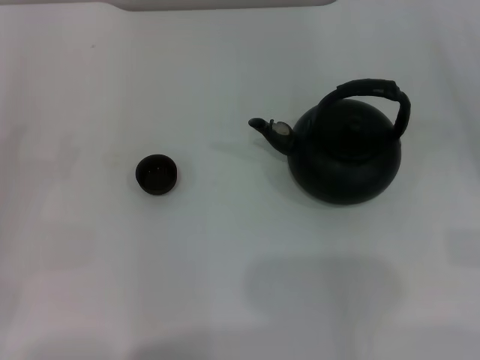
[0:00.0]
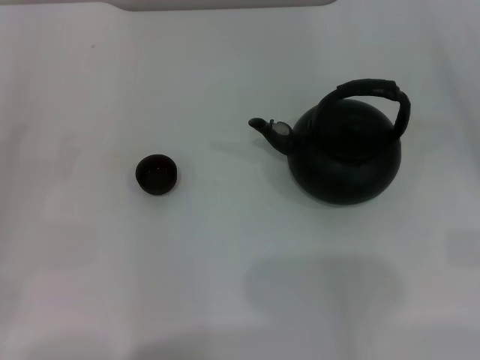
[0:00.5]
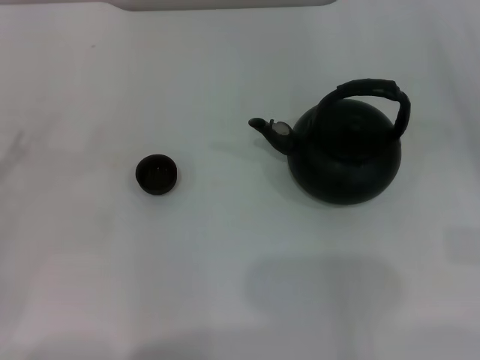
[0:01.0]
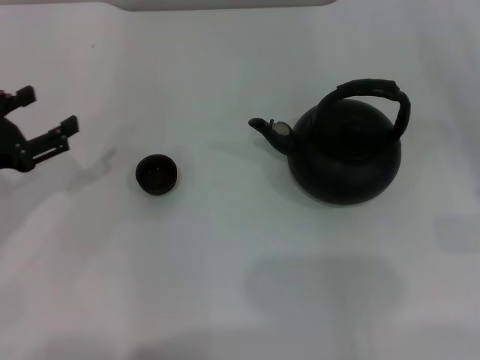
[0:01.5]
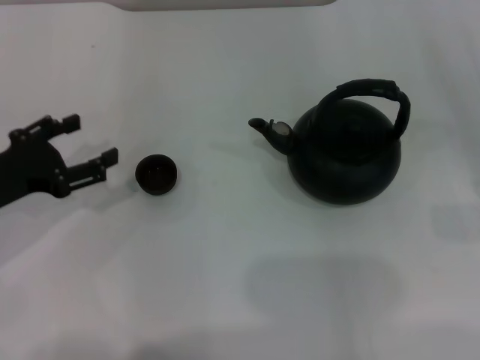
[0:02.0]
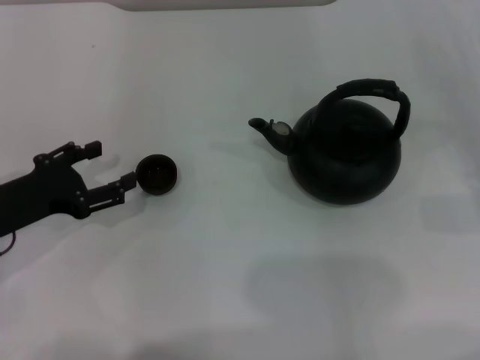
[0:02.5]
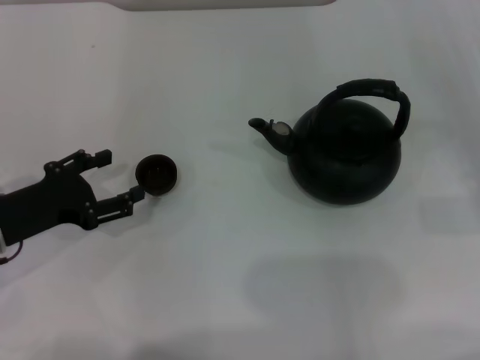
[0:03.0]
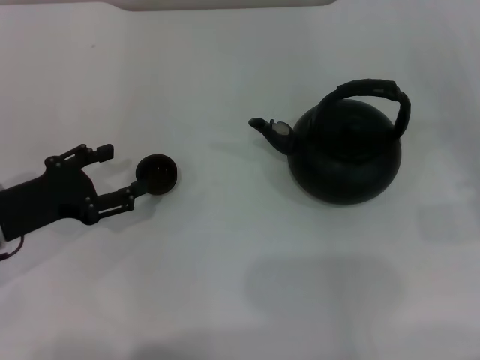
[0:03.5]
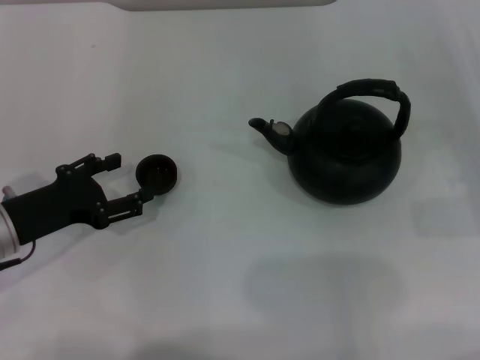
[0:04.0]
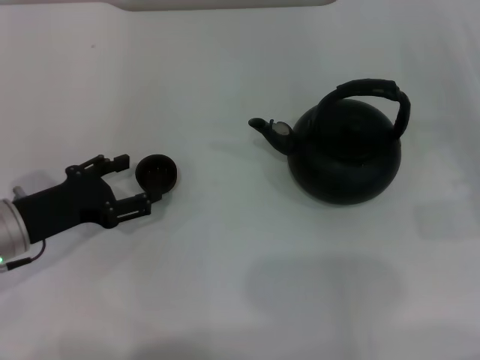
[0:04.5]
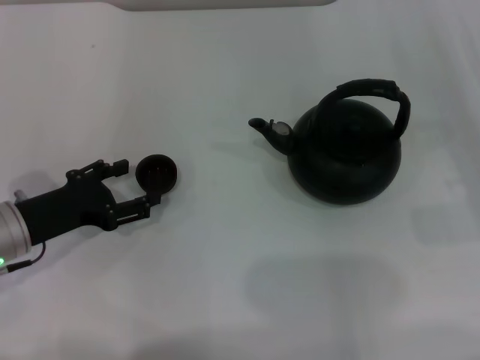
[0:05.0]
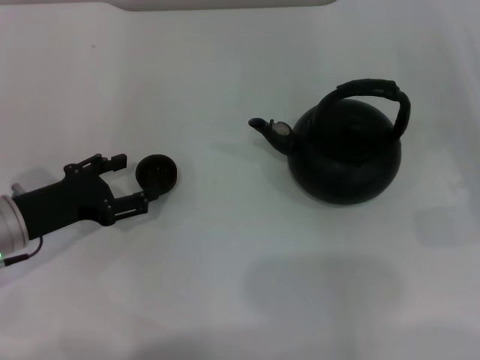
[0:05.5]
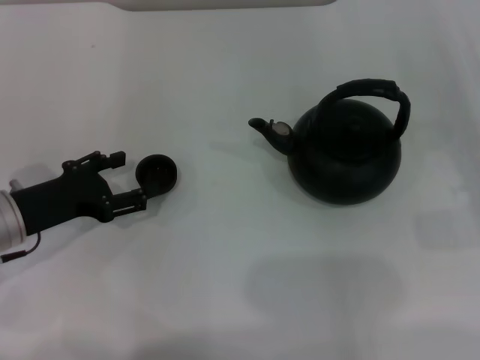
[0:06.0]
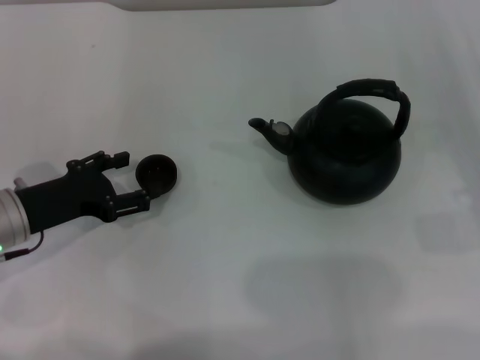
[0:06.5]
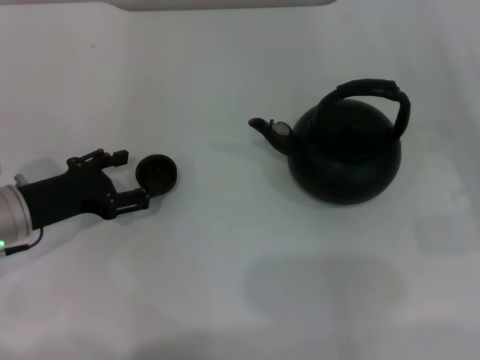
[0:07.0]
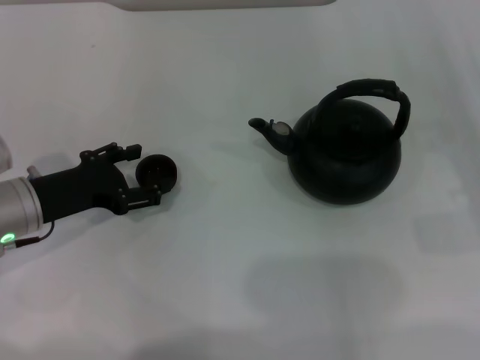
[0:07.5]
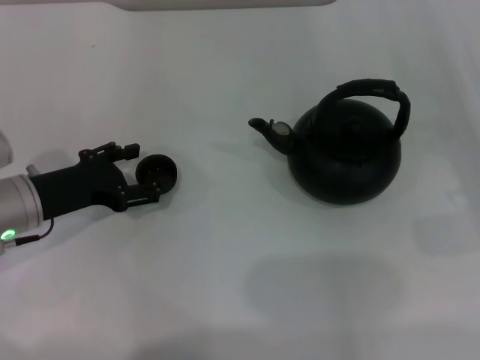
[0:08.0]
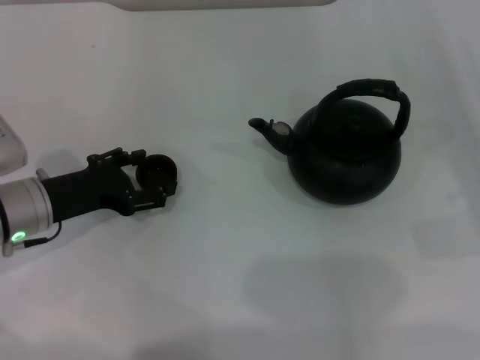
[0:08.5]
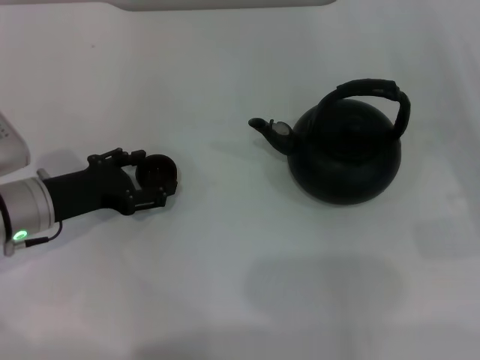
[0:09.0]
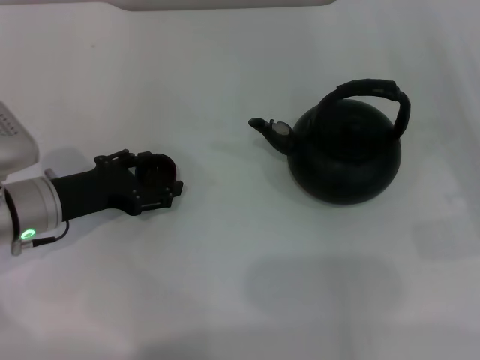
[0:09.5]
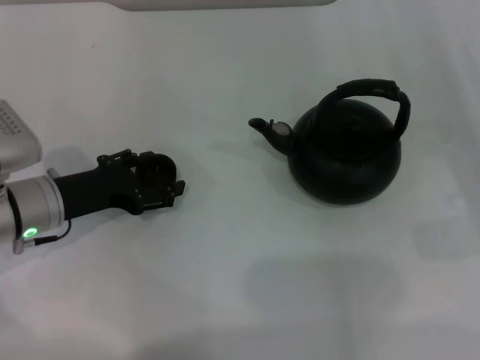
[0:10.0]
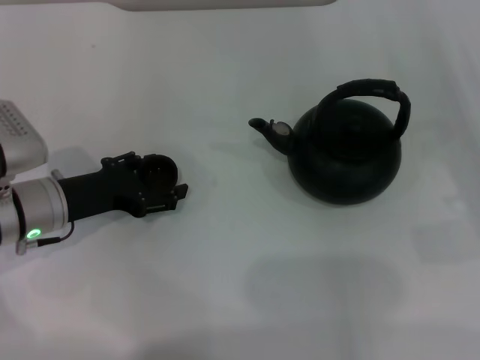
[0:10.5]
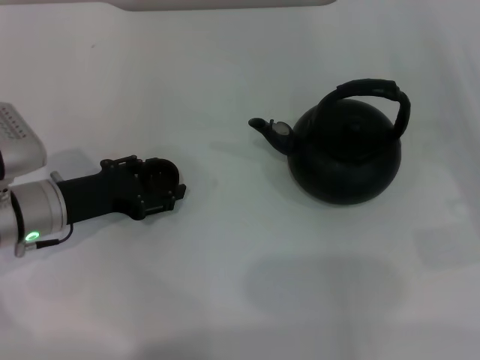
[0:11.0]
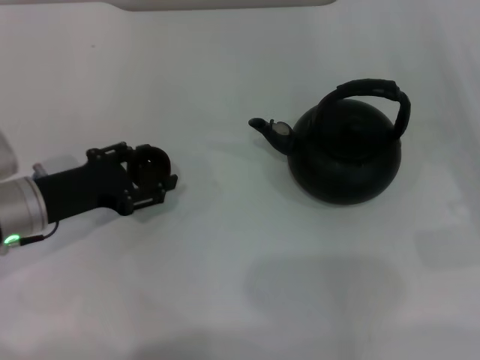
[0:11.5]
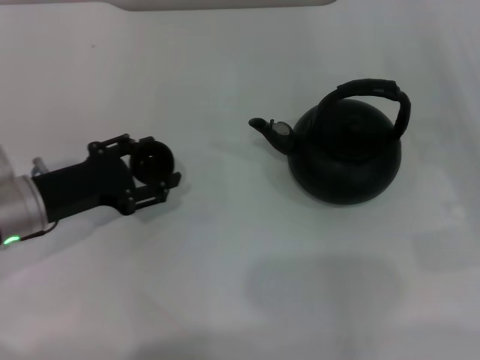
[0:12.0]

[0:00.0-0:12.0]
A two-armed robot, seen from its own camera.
Task of the whole recording: Grasp the handle of the teapot with one hand and pour tea into the teacup.
Step, 0:00.0 to 0:11.5: Pick up the teacup with the left gripper.
0:00.0 to 0:02.0: The left gripper moves to the right and forward, some 10 cm.
0:02.0 to 0:04.0: The grippers move only a little.
0:04.0 to 0:06.0: Neither gripper changes place.
0:06.0 to 0:10.0: There are only small adjustments of the grippers.
0:10.0 to 0:12.0: The left gripper closes.

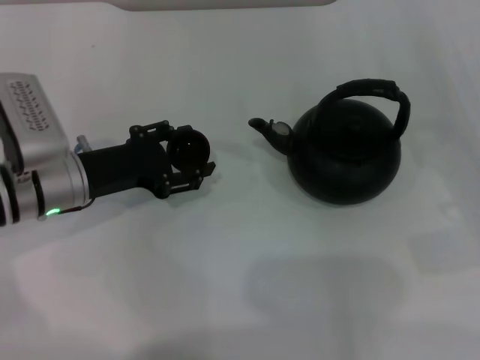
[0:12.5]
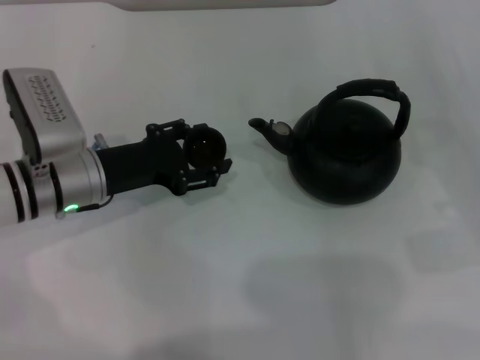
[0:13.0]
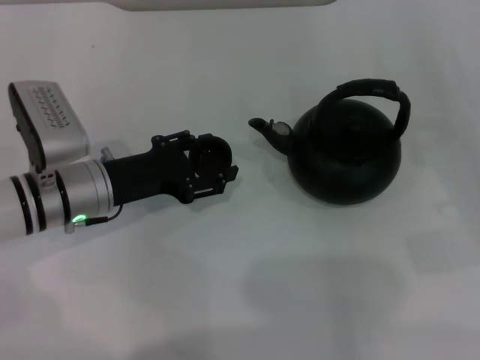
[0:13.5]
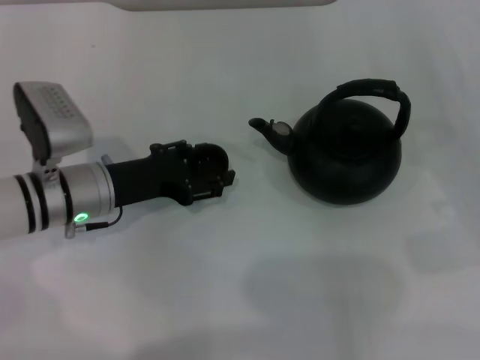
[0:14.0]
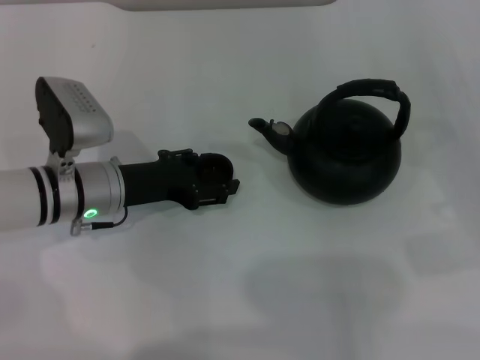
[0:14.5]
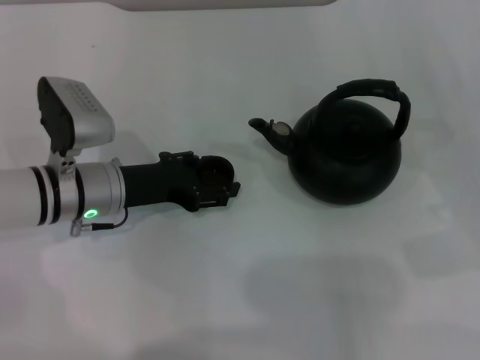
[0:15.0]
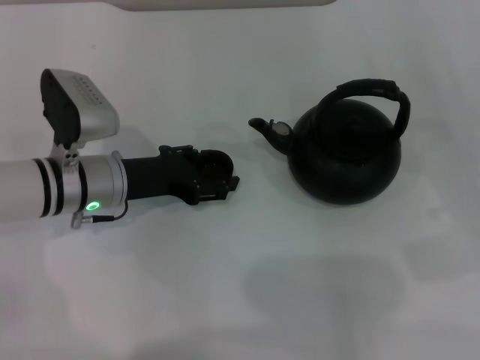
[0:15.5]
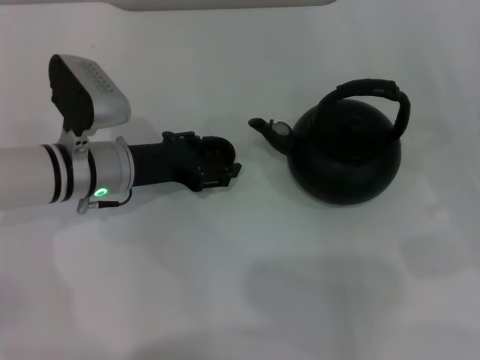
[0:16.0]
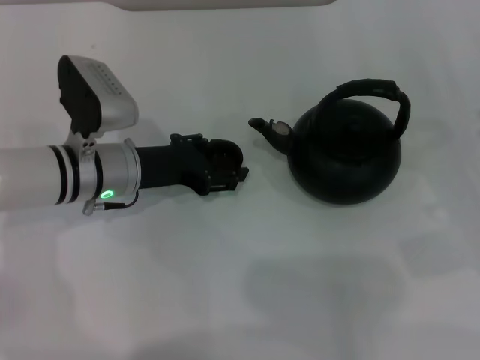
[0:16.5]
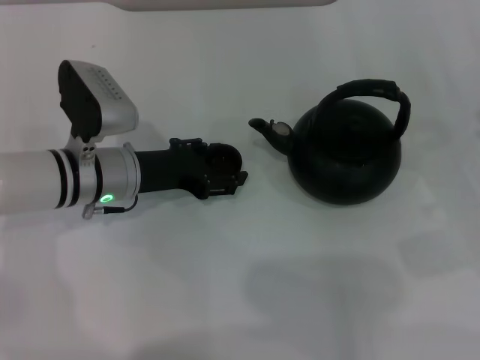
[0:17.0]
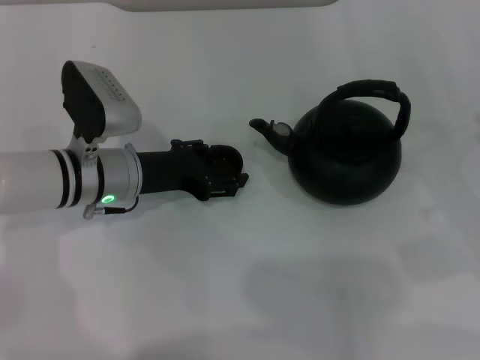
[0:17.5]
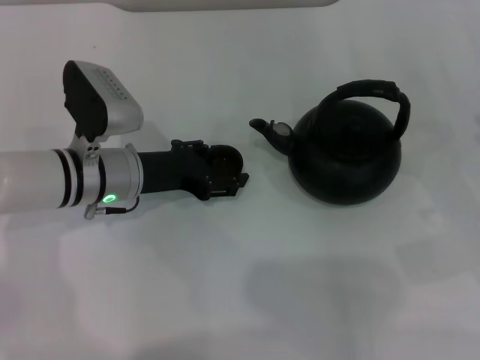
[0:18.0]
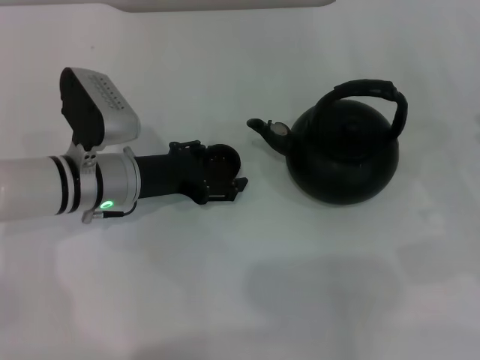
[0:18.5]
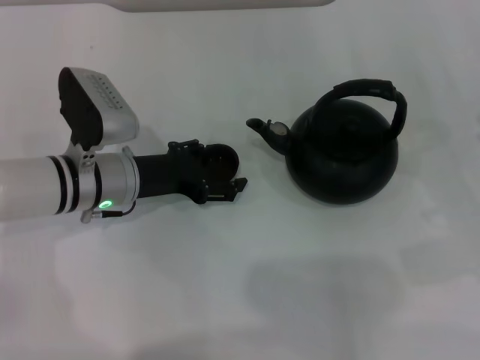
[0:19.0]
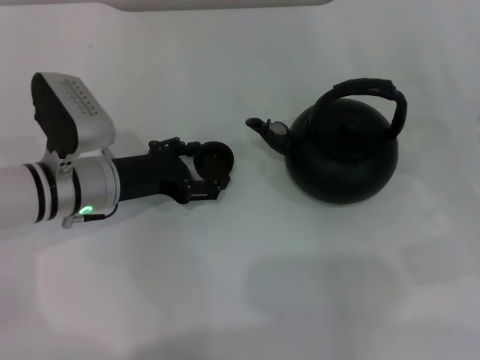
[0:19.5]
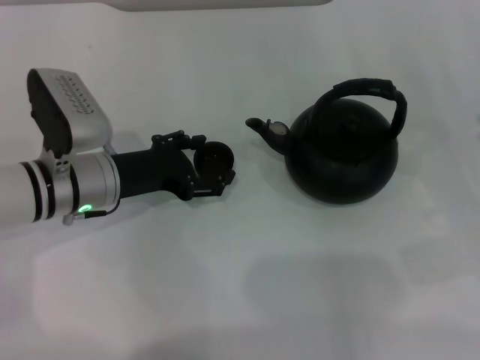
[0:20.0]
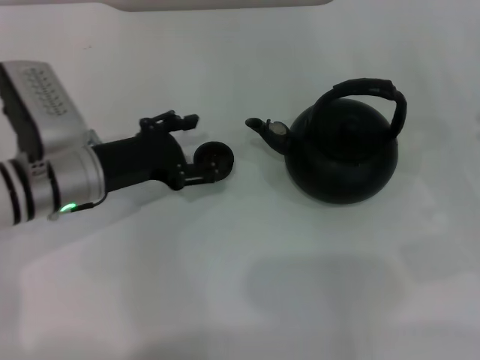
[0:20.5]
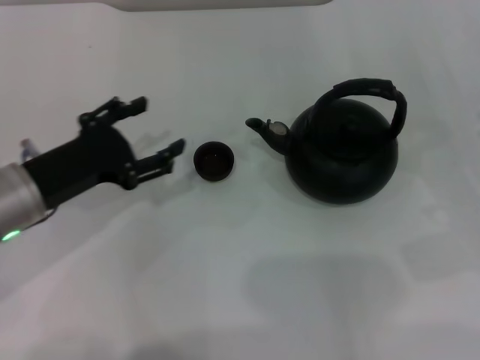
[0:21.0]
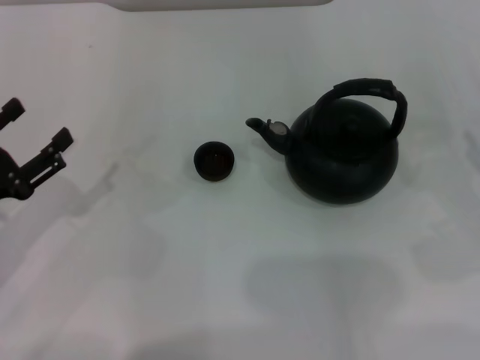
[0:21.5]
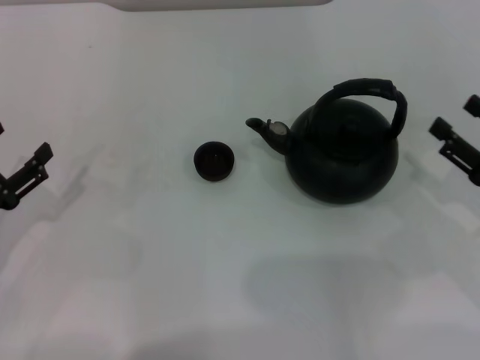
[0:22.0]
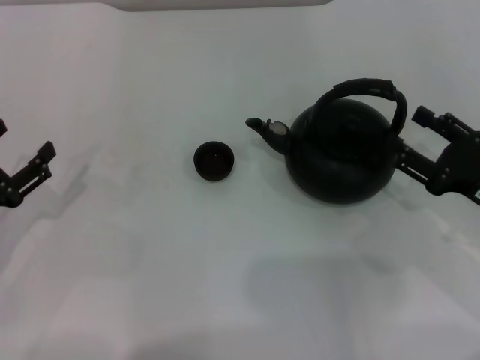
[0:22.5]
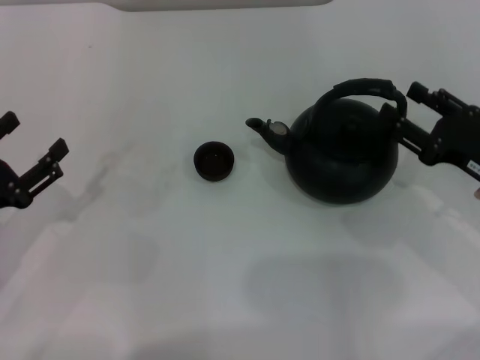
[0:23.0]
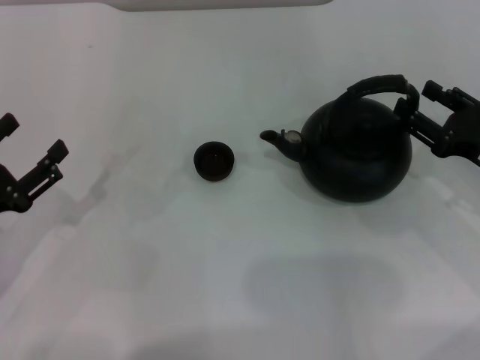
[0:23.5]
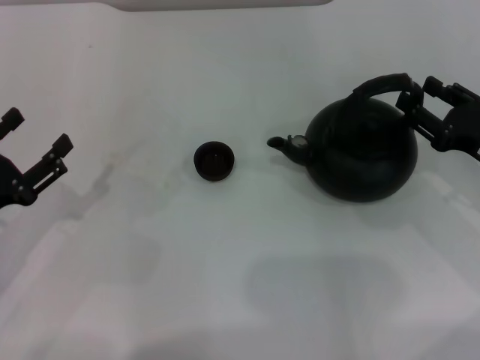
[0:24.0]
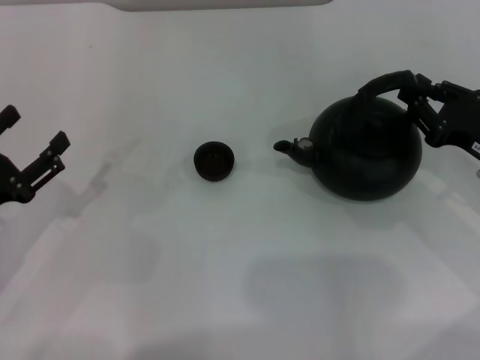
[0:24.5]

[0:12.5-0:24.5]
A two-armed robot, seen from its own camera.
Task of the whole recording: Grasp the handle of the teapot with one hand and pour tea into the teacup.
Step, 0:12.5 to 0:20.5: Place the teacup in the center of view with the left gripper.
0:12.5 to 0:18.5: The grippers make only small movements.
0:18.5 to 0:20.5: The left gripper opens.
0:20.5 to 0:22.5: The right gripper is displaced to the left by some 5 cm. The left gripper moves to the left and backward, approximately 15 cm.
0:22.5 to 0:24.5: The right gripper closes up.

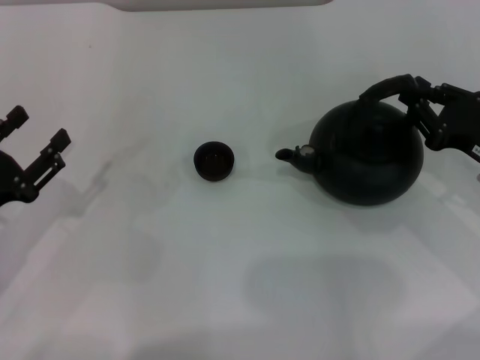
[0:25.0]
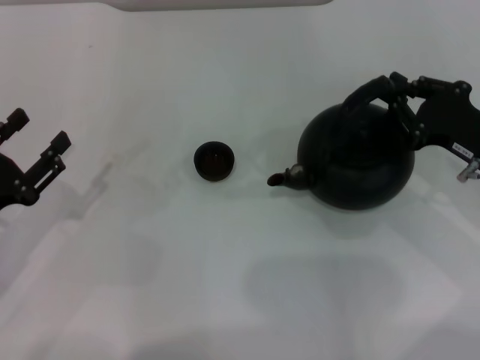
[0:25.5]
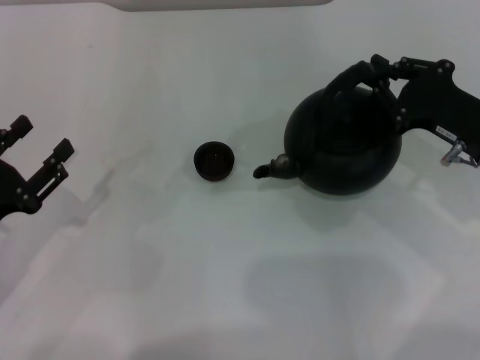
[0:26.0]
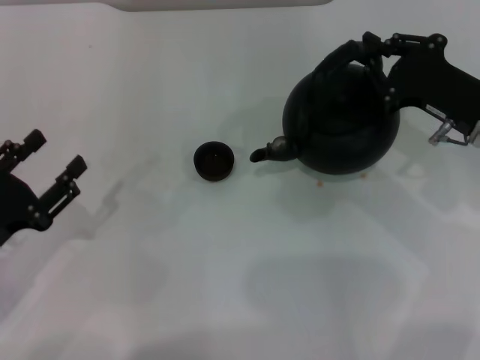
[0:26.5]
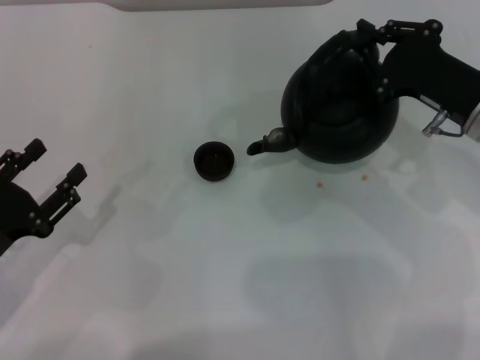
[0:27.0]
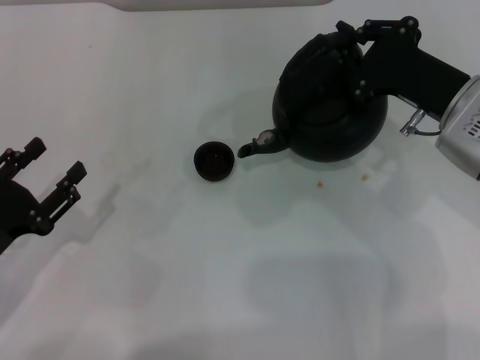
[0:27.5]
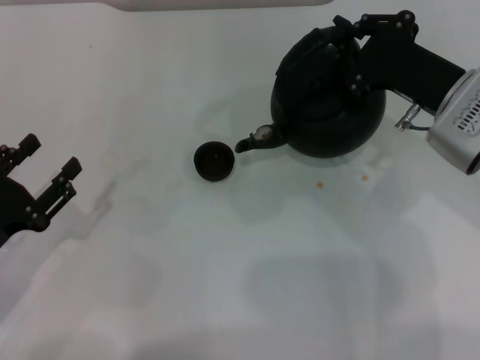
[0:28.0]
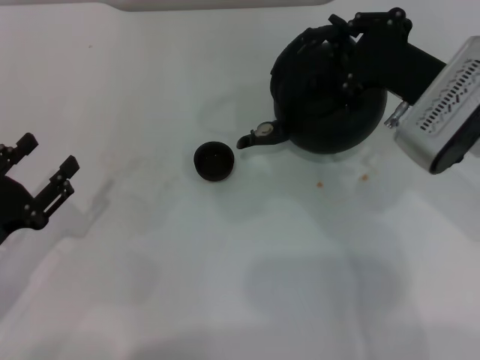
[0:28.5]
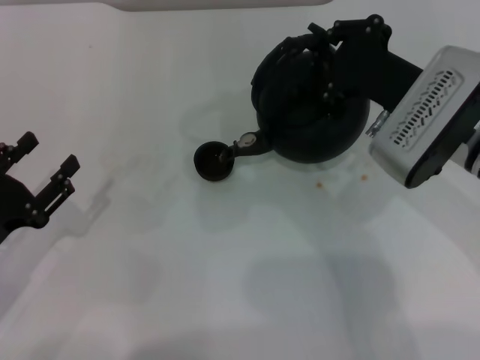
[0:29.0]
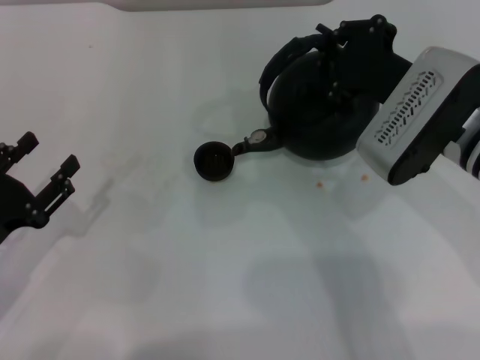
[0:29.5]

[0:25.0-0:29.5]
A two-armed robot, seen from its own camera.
Task of the whole recording: Grasp the handle of the teapot with one hand and pour tea into the teacup.
0:25.0 to 0:27.0: The right gripper moves to the left, roughly 5 cm.
0:27.0 to 0:29.5: The right gripper heads to the left, covering approximately 5 cm.
